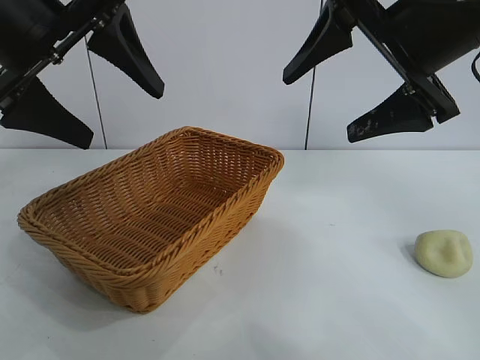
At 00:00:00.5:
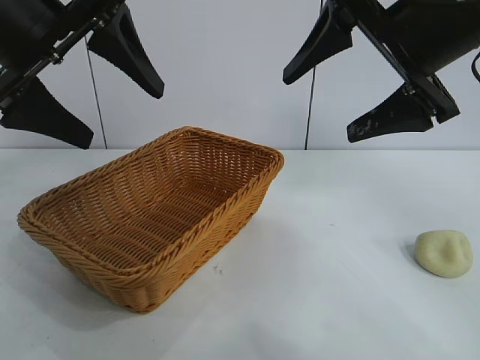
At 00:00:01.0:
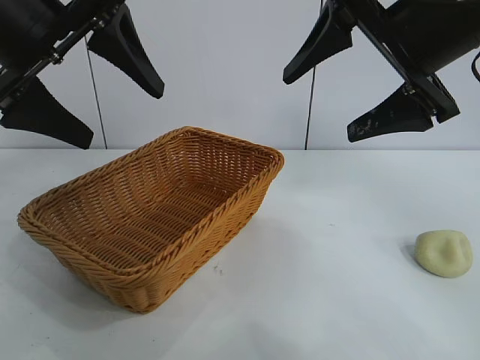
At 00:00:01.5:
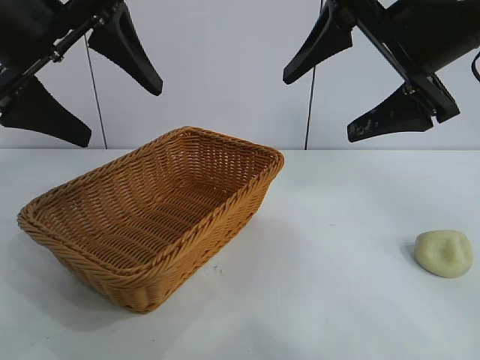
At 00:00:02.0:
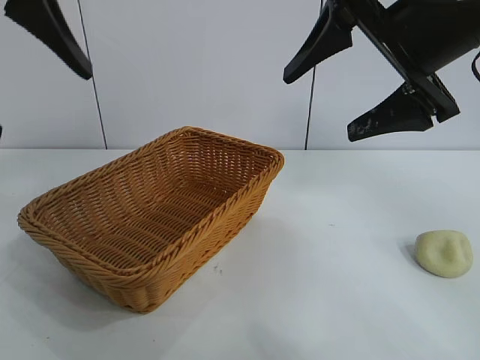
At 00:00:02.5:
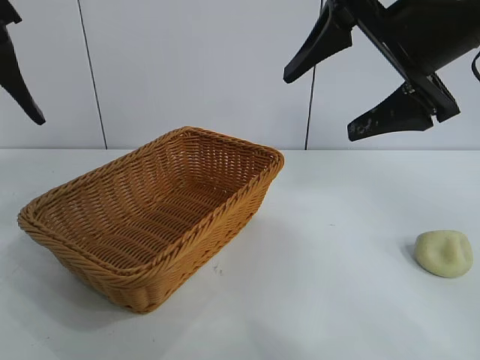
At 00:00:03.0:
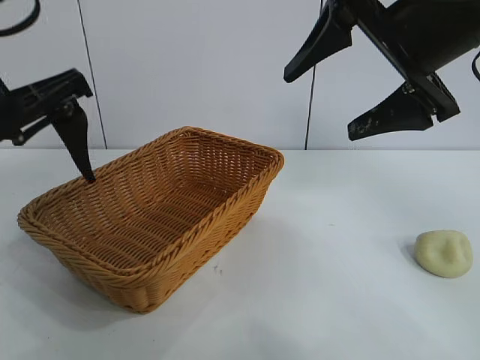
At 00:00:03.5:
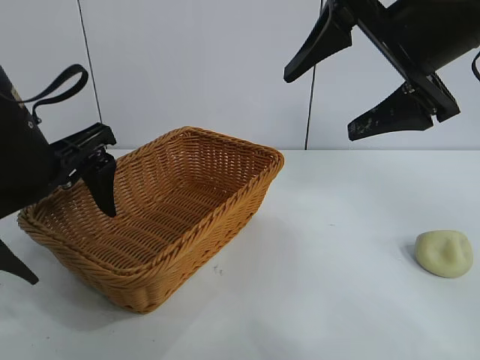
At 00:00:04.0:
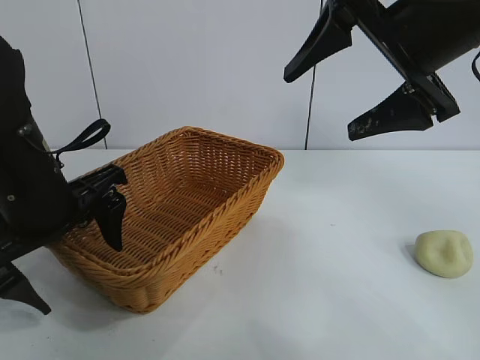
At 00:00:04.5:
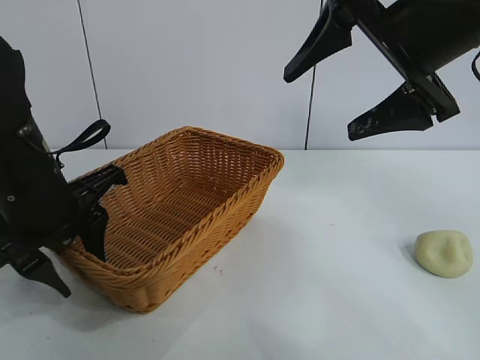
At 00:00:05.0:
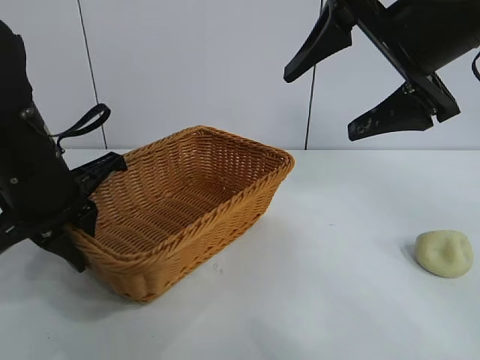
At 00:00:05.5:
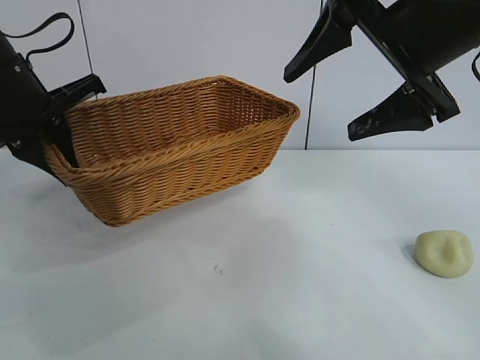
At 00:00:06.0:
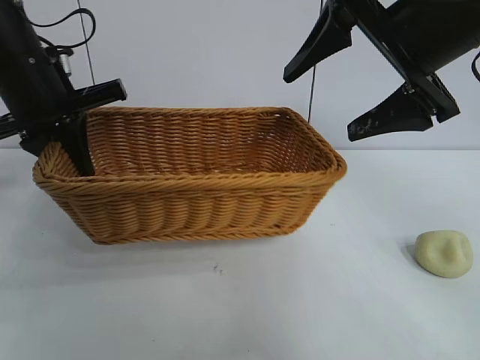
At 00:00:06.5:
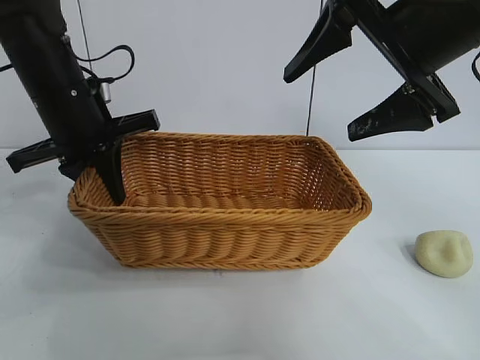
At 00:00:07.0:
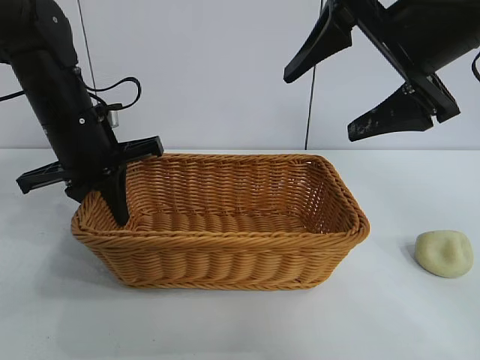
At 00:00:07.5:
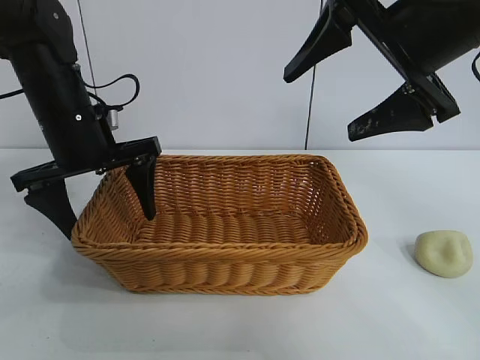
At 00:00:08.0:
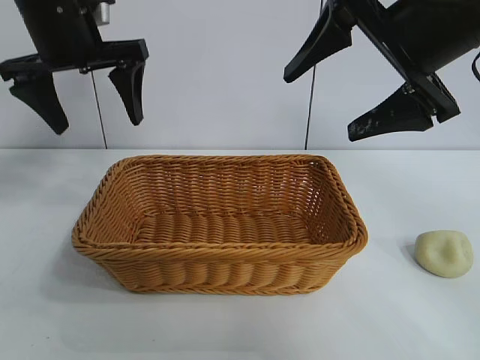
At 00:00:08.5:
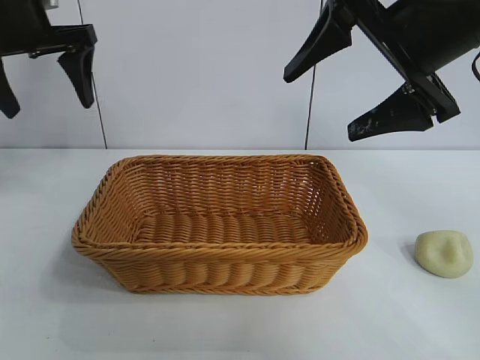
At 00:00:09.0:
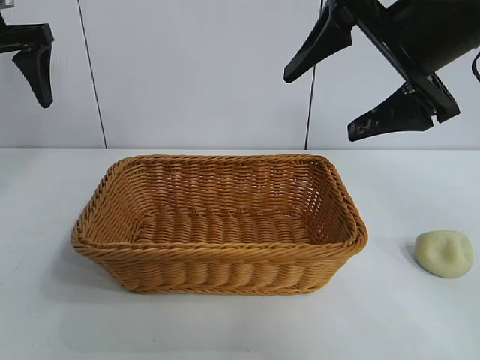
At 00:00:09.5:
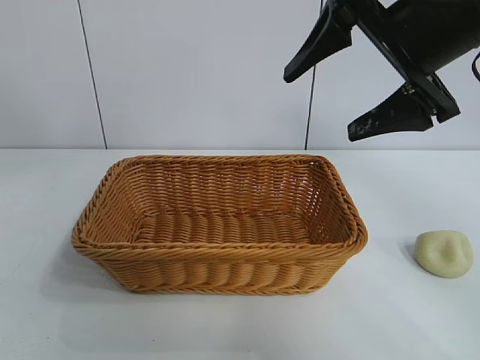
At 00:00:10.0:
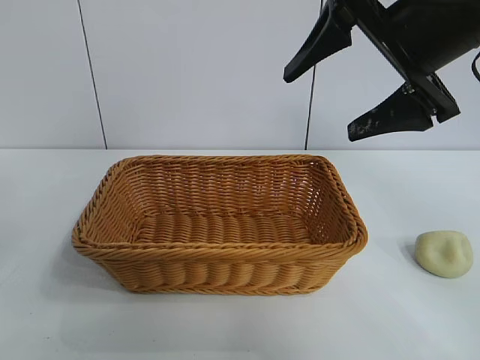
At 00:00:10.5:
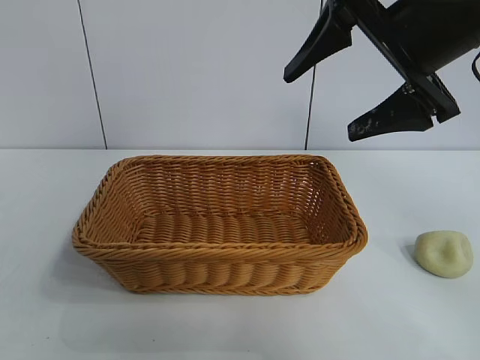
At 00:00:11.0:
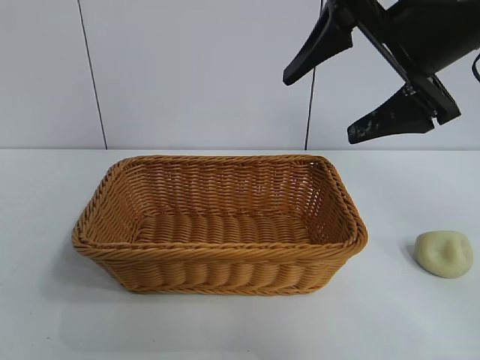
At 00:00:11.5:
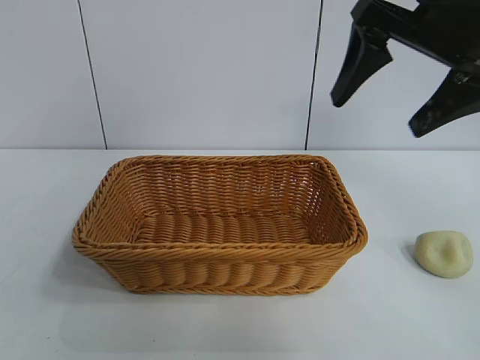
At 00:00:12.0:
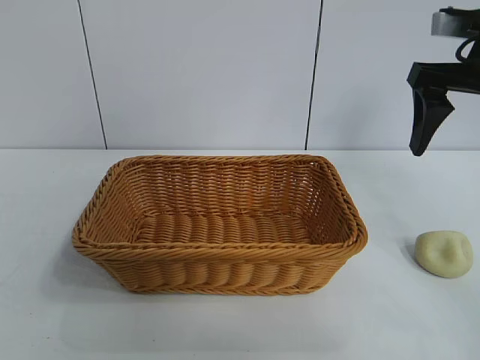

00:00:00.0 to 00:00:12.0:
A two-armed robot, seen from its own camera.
Task of the whole recording: pick up the egg yolk pastry and put it into the basket.
Step, 00:00:01.5 to 00:00:04.5: Grasp the basket with left gripper.
Step, 00:00:05.0 to 00:00:07.0: Place the basket in the center of view with left gripper.

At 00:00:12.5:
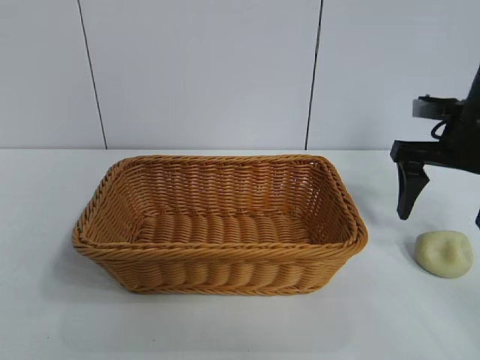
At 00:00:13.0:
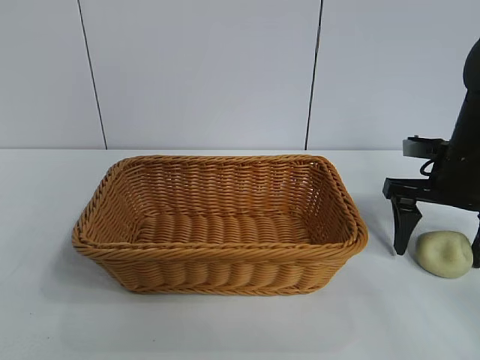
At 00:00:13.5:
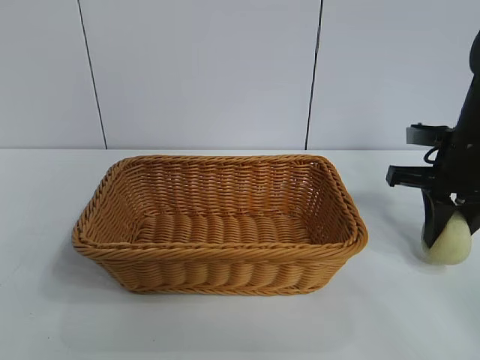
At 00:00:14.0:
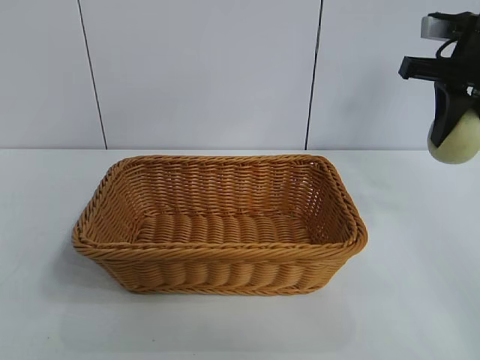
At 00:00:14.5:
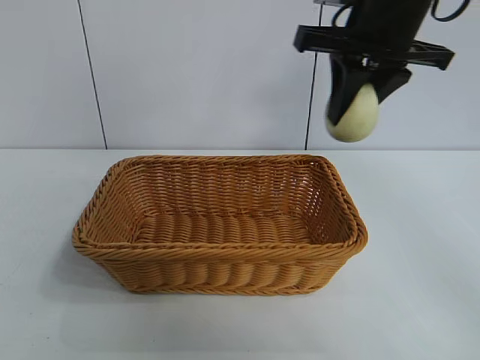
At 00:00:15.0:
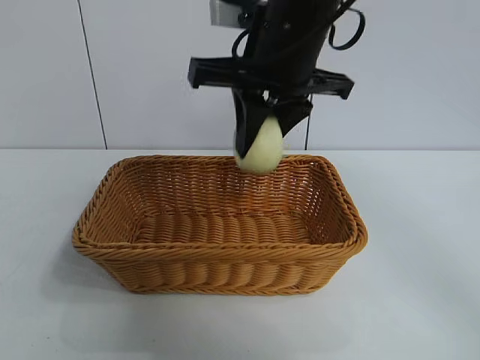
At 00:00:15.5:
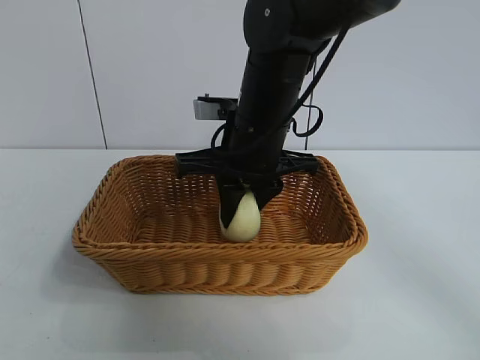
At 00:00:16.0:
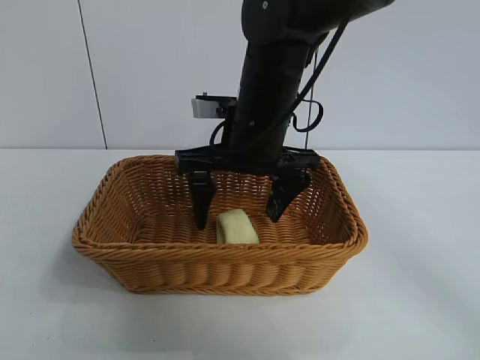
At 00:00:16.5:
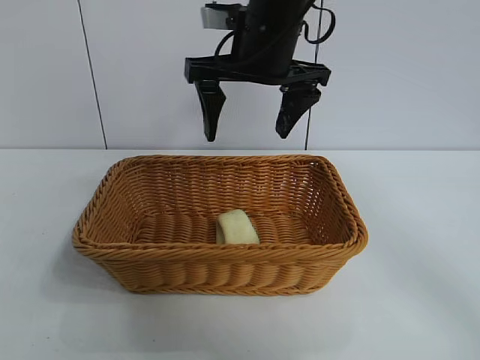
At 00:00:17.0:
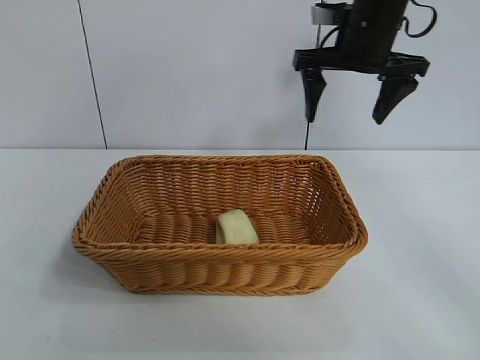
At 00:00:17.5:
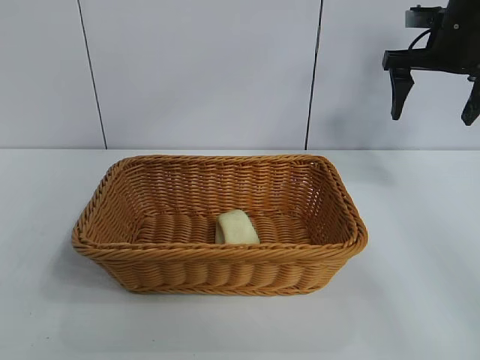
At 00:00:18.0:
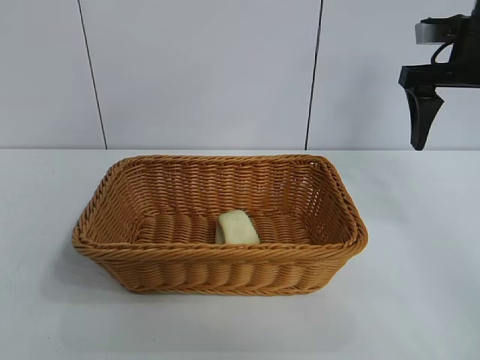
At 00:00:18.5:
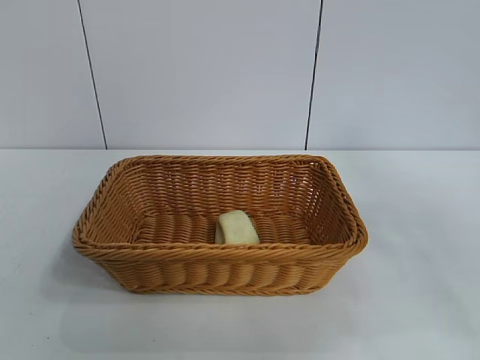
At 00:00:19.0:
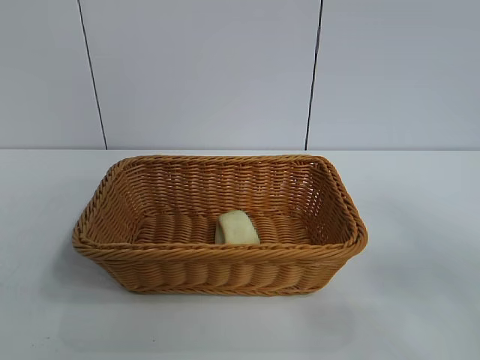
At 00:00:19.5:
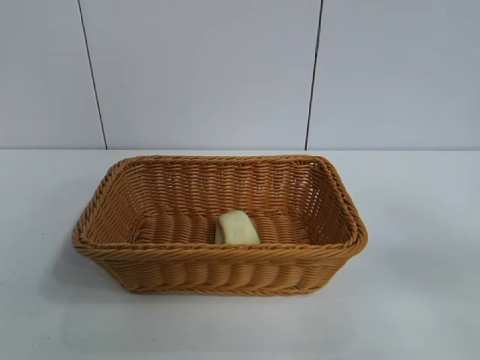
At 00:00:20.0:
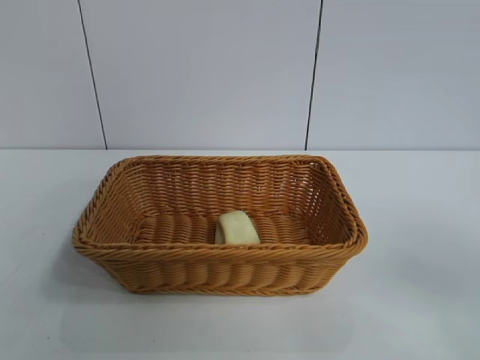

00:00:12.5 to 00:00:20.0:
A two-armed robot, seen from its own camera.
Task of the whole recording: pick up the egg yolk pastry and put it into the basket.
Step, 00:00:13.5 to 00:00:15.5: Place the egg yolk pastry in the basket with right gripper.

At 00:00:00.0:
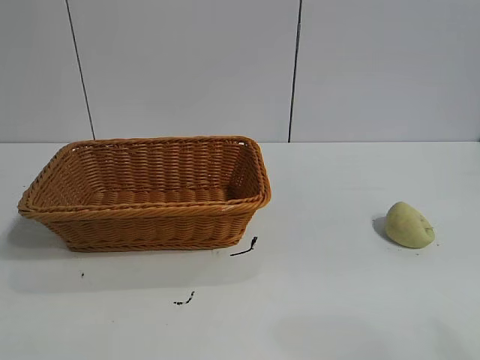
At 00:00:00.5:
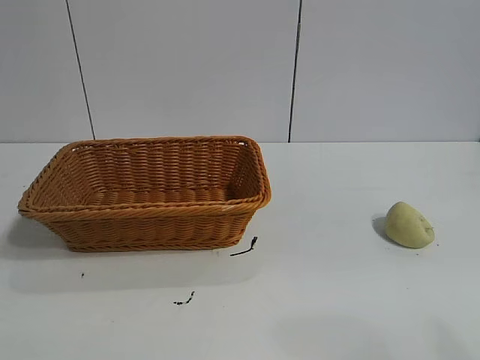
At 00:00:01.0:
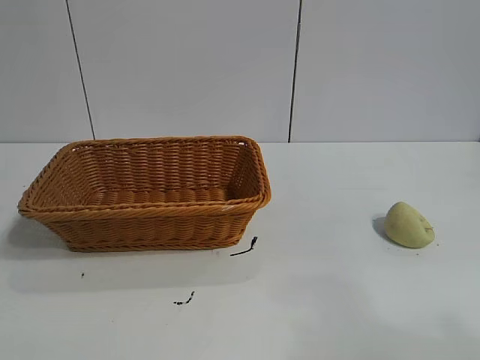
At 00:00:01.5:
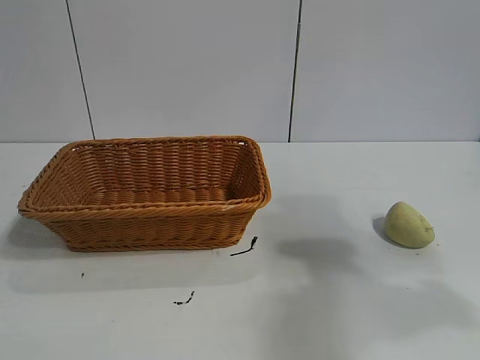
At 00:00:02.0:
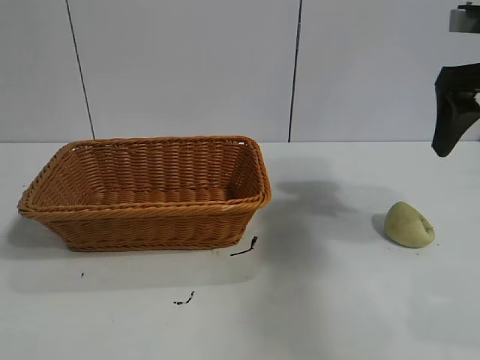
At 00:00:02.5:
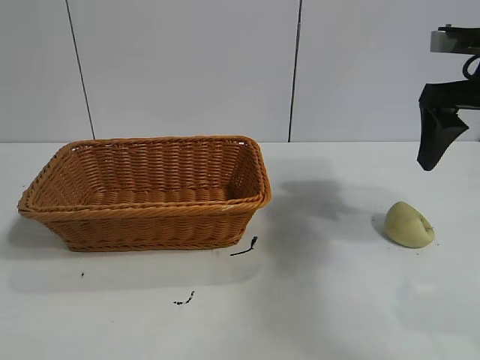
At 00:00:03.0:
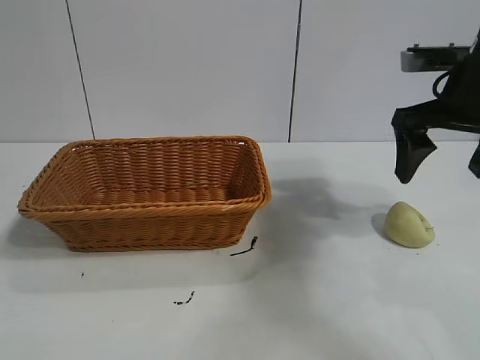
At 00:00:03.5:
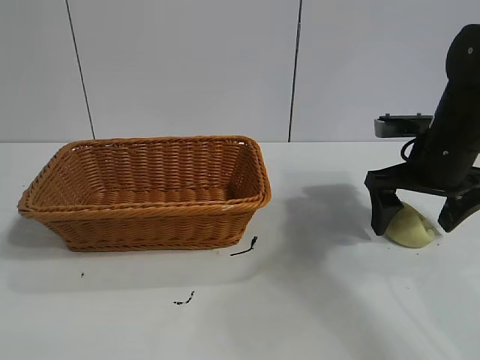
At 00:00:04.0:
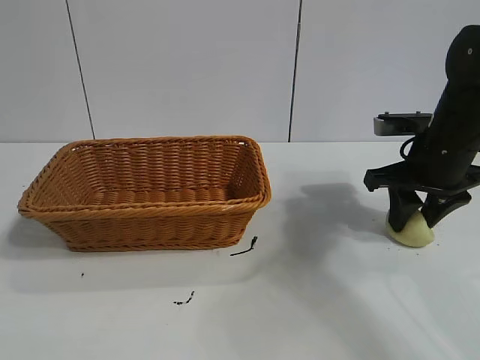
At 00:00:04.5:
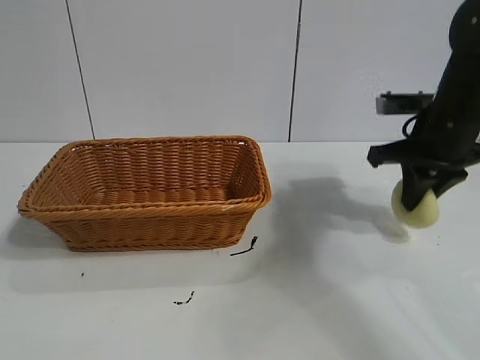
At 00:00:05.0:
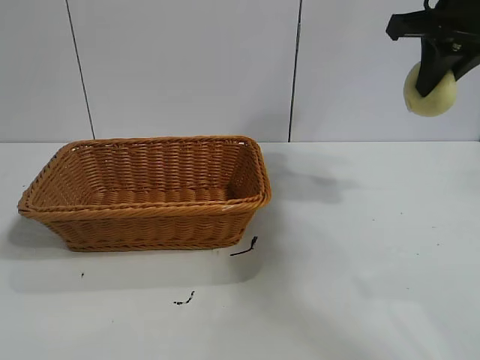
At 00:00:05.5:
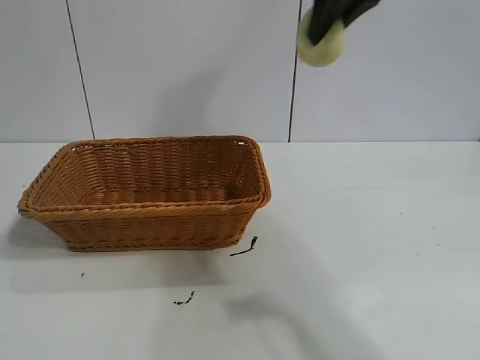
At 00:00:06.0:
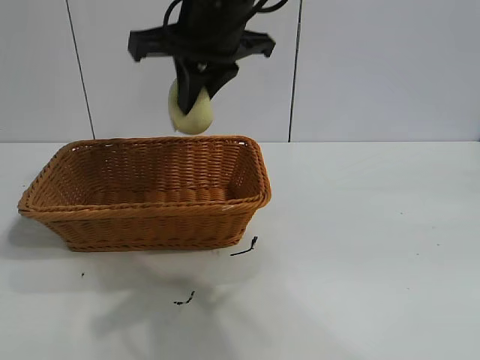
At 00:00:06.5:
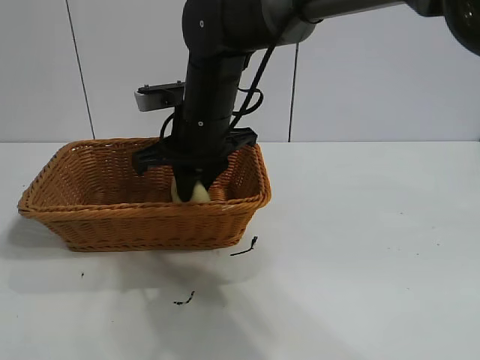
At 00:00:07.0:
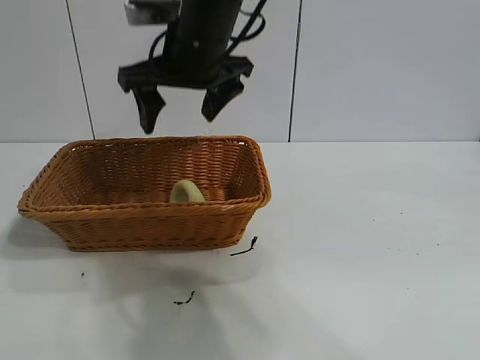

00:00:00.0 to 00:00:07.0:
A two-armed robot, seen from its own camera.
Task of the whole recording: pick up the egg yolk pastry and put it into the basket.
Step, 00:00:01.0 to 00:00:04.0: Grasp egg yolk pastry with right gripper.
Step, 00:00:04.5 to 00:00:06.5: Place the egg yolk pastry in the basket with right gripper.
